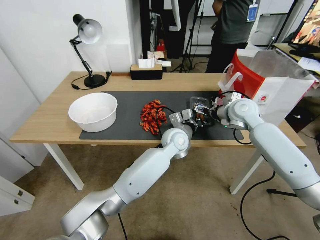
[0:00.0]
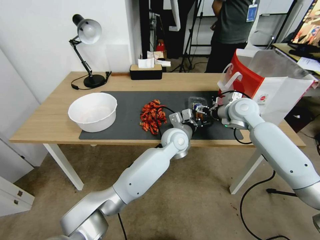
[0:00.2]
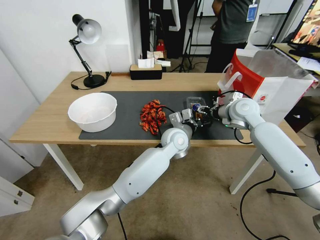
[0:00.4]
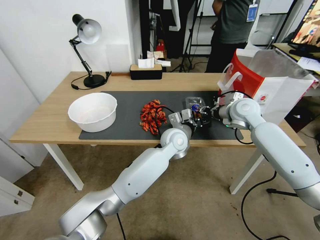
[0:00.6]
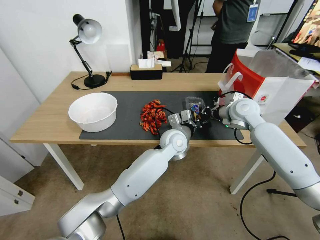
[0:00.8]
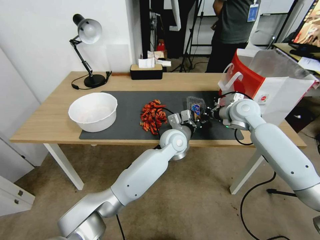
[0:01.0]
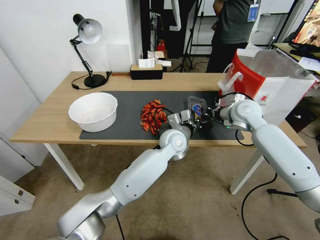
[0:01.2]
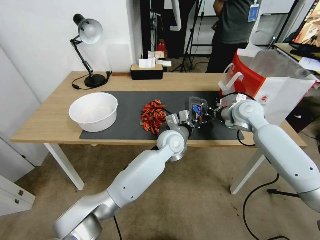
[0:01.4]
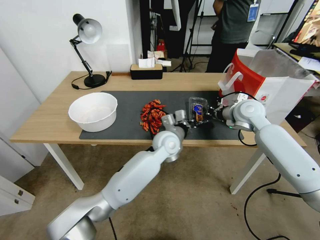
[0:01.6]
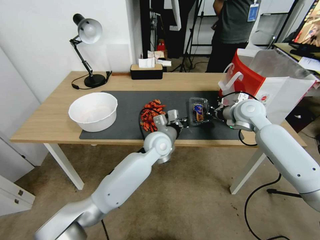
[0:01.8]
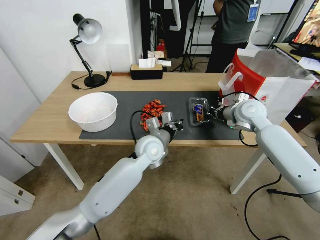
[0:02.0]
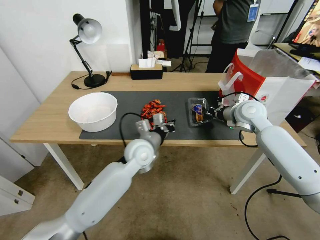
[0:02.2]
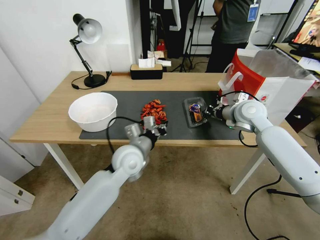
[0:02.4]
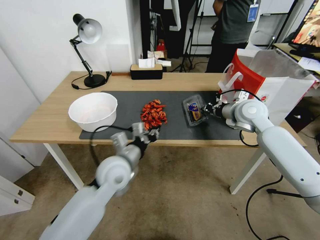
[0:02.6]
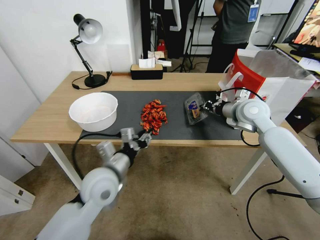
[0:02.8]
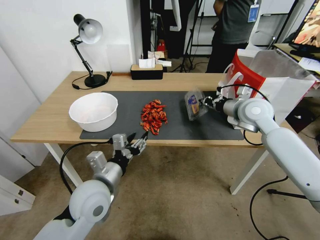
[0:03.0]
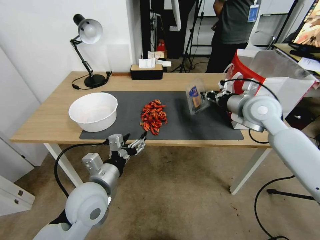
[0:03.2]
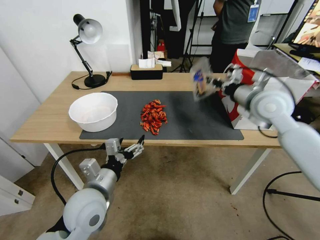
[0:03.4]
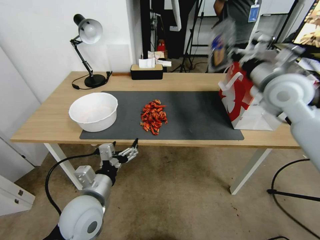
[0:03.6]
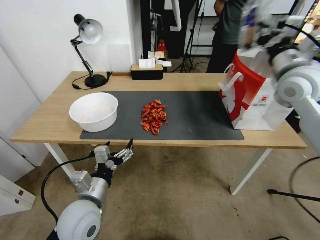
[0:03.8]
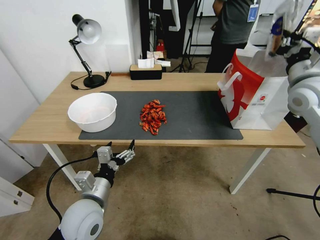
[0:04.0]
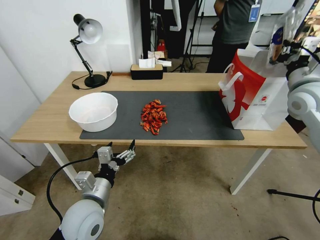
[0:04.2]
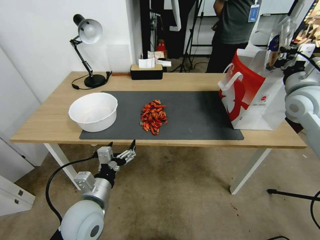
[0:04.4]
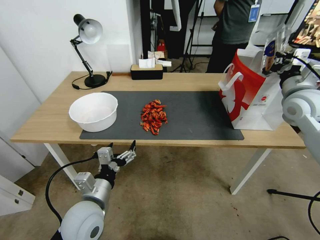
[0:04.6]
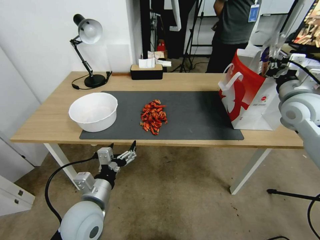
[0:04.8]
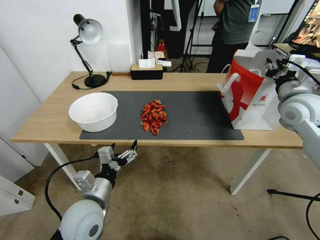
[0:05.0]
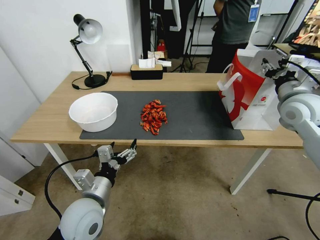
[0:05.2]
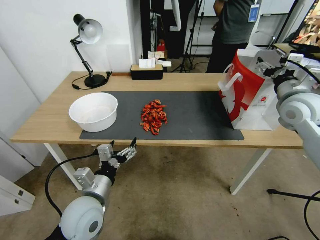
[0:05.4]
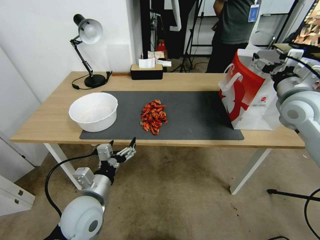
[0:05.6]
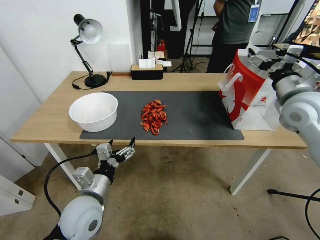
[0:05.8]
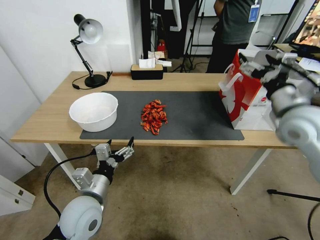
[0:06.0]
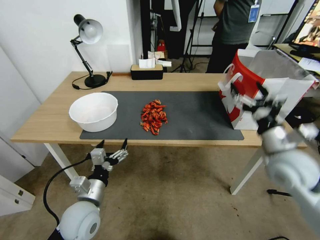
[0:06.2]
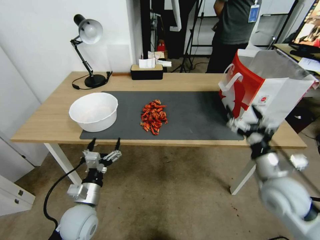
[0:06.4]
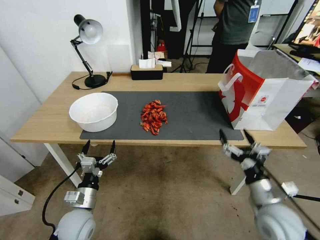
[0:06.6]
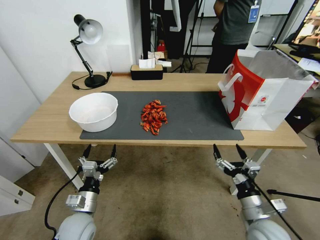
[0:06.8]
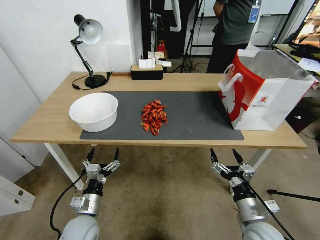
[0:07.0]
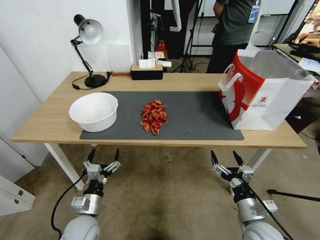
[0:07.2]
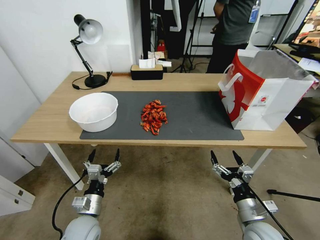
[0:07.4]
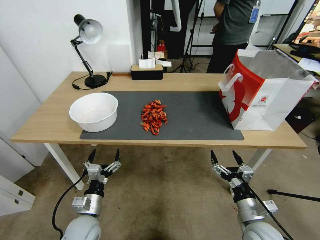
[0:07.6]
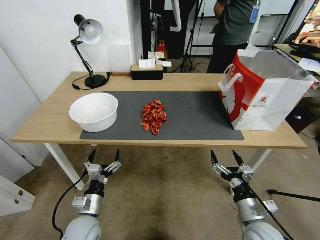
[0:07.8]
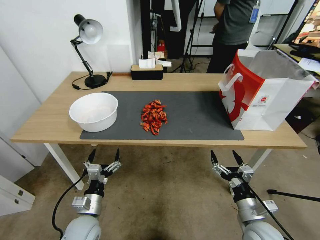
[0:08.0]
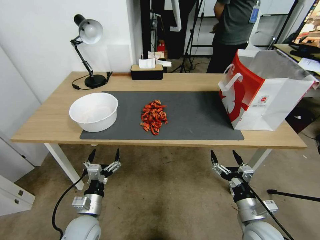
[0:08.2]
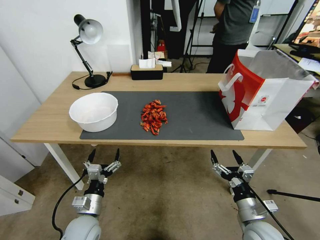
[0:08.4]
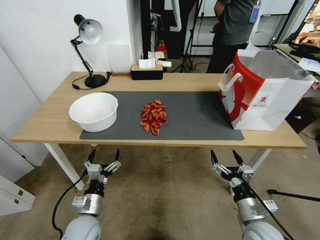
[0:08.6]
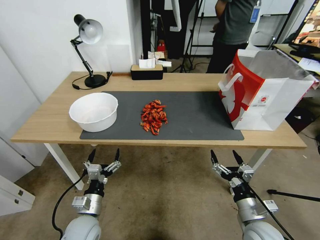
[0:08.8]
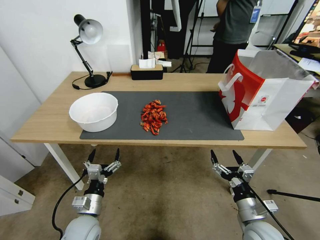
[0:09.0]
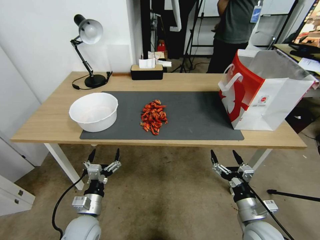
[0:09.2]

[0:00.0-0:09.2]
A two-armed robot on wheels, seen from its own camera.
0:00.0 to 0:01.6: The right gripper closes.
0:01.6 to 0:03.0: The left gripper is displaced to the left and backward by about 30 cm, and opens up.
0:03.0 to 0:04.6: The right gripper goes approximately 10 cm to the right; the left gripper changes place by roughly 5 cm, and opens up.
0:04.6 to 0:06.2: The right gripper goes approximately 20 cm backward, downward and to the left, and opens.
0:06.2 to 0:07.6: The left gripper moves downward, approximately 10 cm; the right gripper heads downward and backward, covering some 25 cm.
0:07.6 to 0:09.2: The two grippers keep their place.

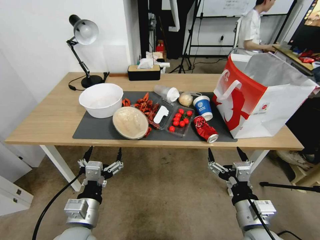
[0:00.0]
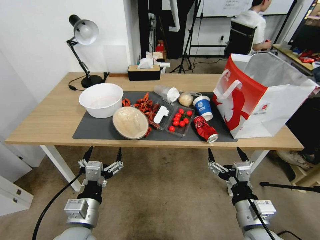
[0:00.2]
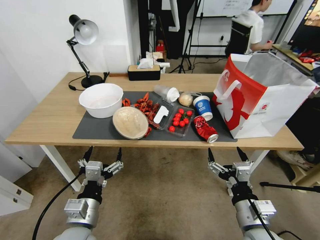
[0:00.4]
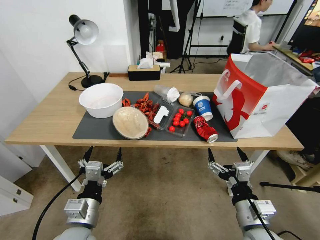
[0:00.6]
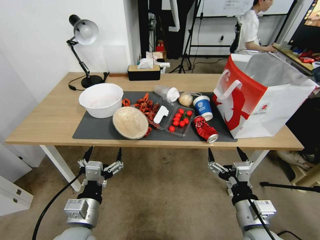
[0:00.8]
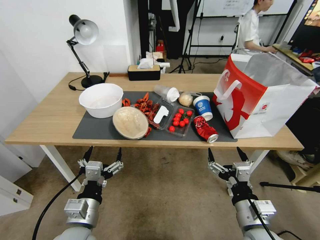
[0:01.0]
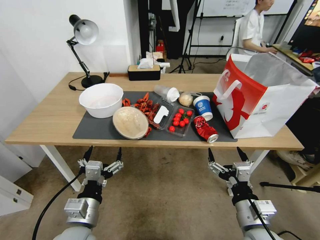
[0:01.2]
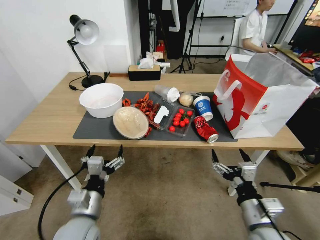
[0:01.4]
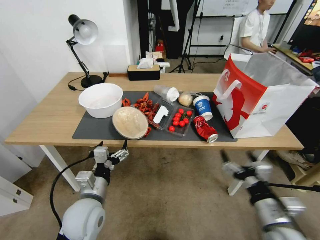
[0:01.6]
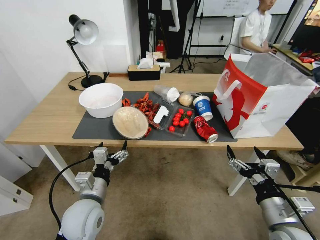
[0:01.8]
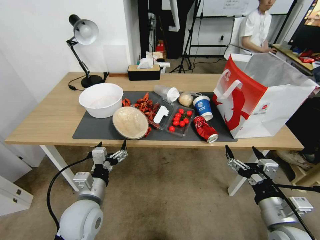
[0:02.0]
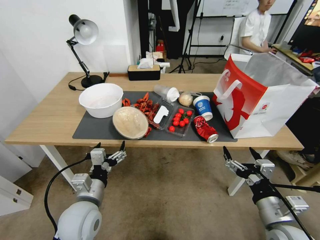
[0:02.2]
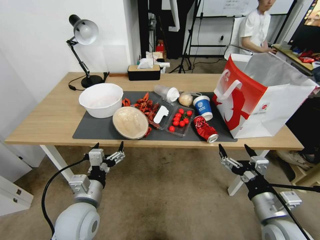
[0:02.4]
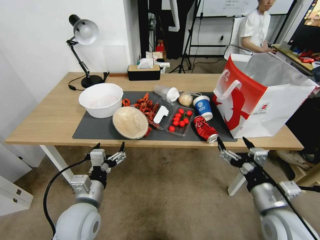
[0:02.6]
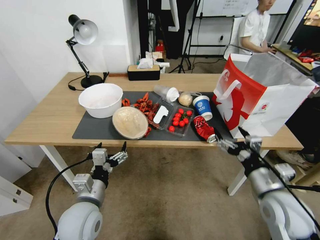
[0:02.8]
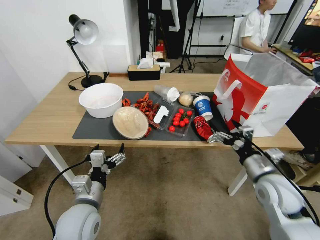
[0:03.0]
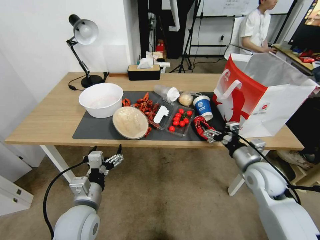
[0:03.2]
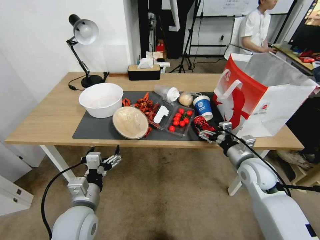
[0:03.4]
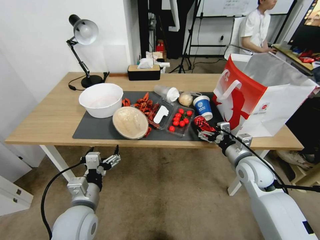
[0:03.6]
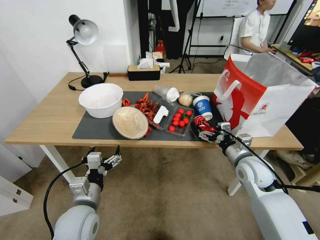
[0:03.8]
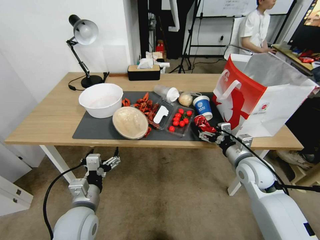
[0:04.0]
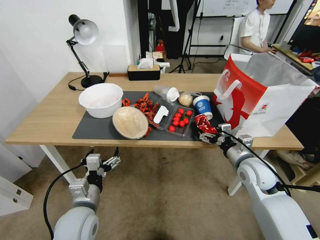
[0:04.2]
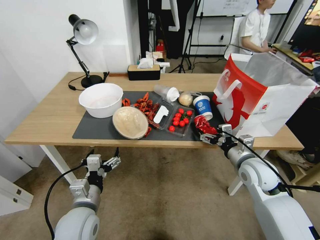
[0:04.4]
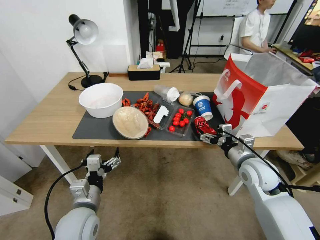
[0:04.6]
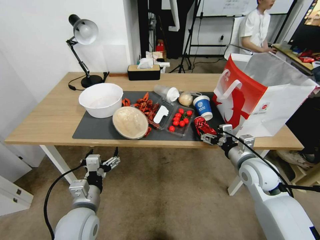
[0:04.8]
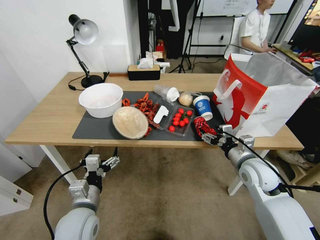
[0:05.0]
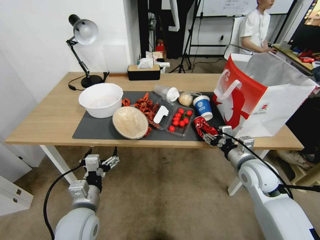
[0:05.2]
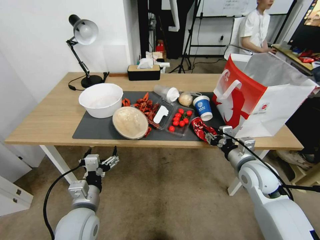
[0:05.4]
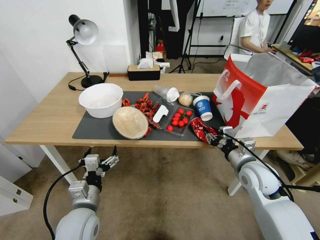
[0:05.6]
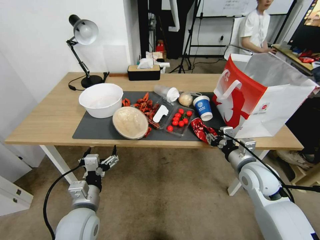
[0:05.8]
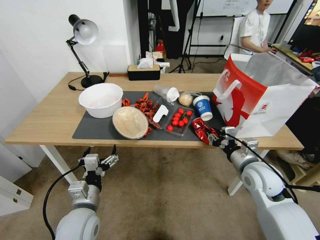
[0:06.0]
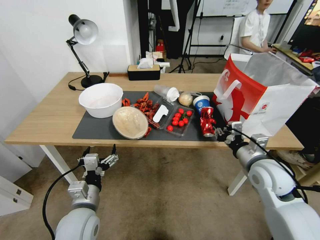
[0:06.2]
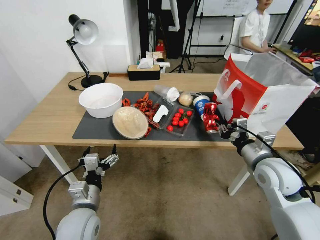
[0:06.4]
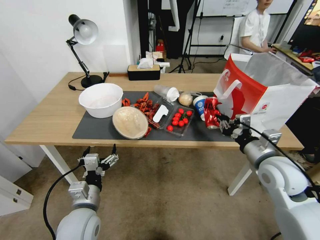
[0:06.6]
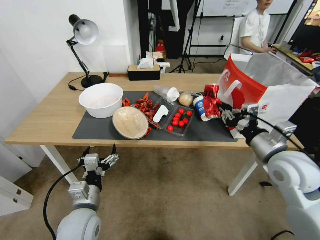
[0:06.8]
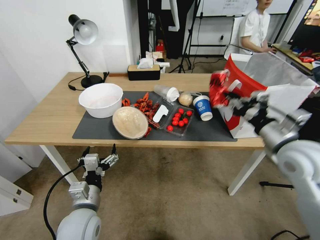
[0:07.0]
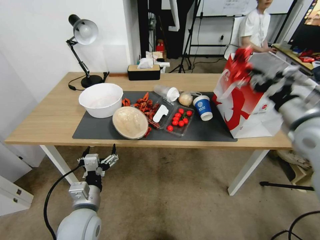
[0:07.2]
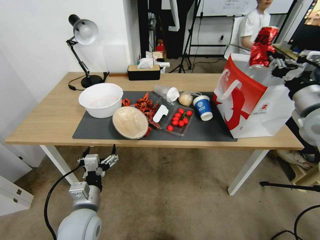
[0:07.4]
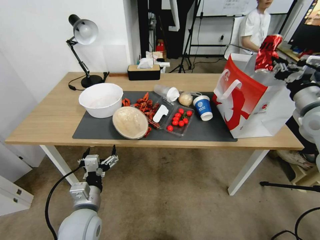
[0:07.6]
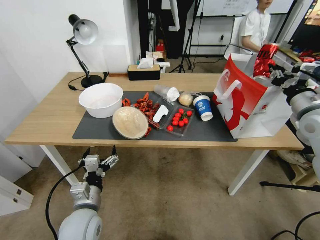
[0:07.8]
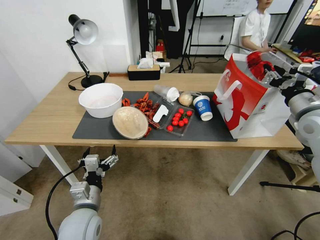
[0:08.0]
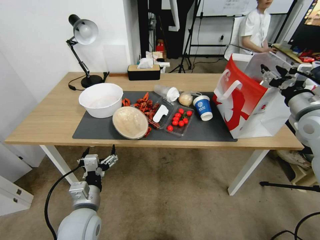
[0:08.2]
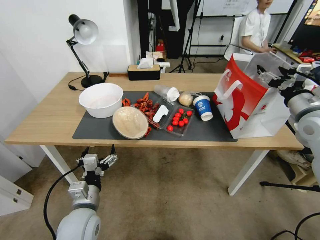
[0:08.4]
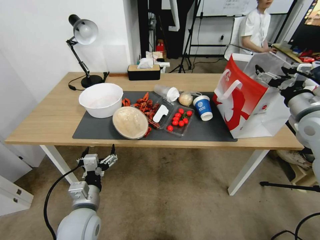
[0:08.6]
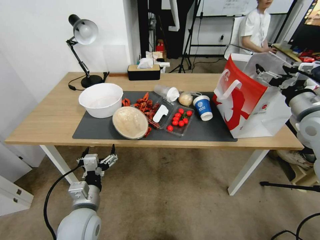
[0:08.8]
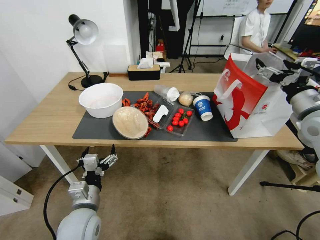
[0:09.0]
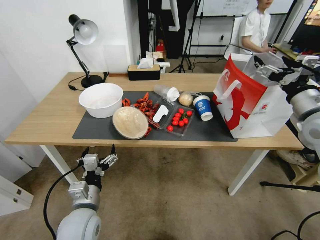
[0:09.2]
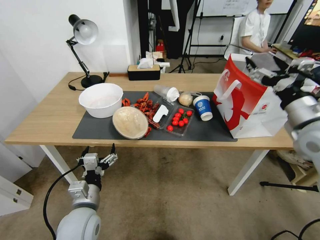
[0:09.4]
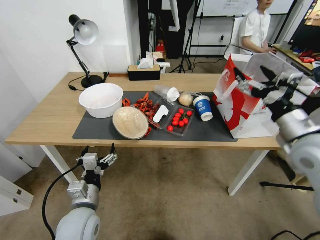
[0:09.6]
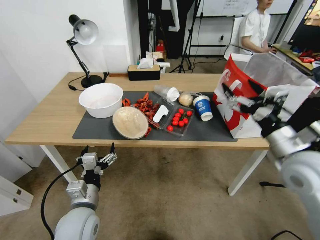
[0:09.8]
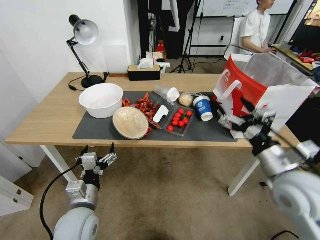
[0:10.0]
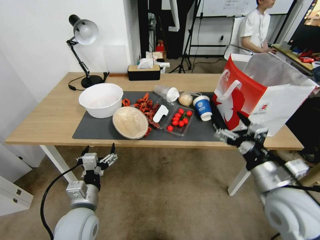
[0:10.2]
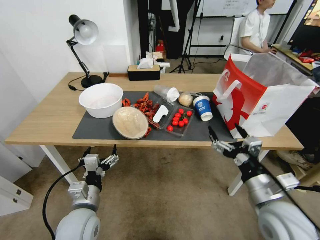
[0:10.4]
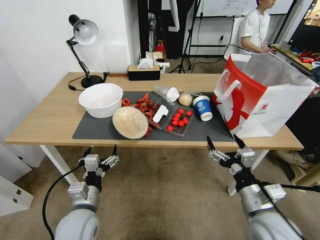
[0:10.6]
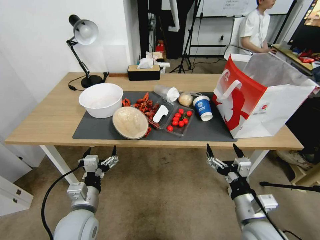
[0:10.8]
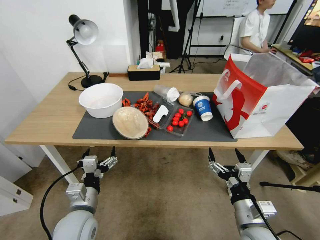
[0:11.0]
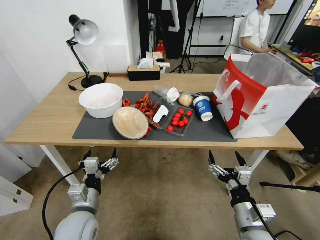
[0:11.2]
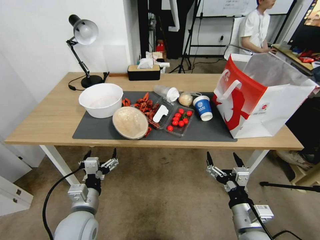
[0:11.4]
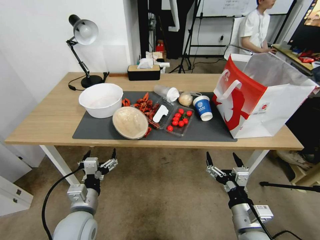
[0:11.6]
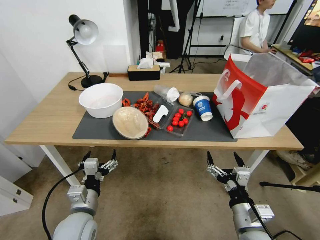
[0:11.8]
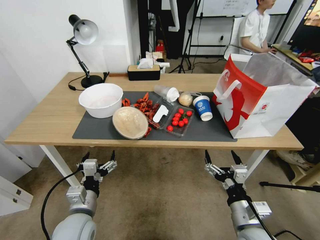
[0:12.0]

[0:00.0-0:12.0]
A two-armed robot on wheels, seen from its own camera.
0:01.6 to 0:03.0: The right gripper heads forward, covering about 10 cm.
0:03.0 to 0:04.4: The right gripper travels forward by about 5 cm.
0:04.4 to 0:06.0: The right gripper closes its fingers.
0:06.0 to 0:07.6: The right gripper travels upward and to the right by roughly 20 cm.
0:07.6 to 0:09.0: The right gripper opens up.
0:09.0 to 0:10.4: The right gripper travels backward, downward and to the left by approximately 25 cm.
0:10.4 to 0:12.0: The right gripper heads downward, covering approximately 10 cm.

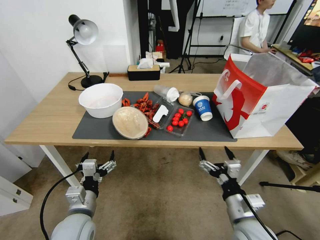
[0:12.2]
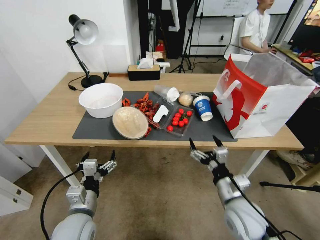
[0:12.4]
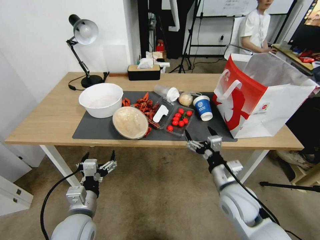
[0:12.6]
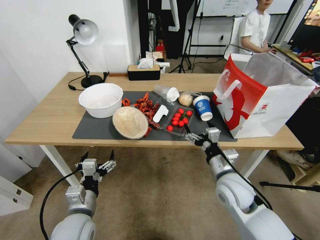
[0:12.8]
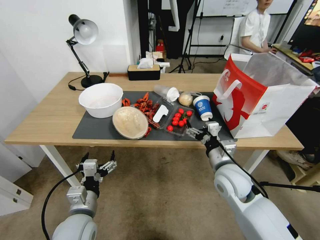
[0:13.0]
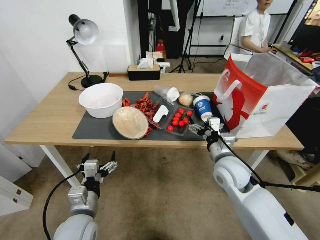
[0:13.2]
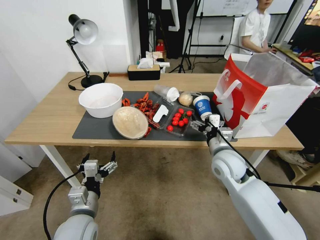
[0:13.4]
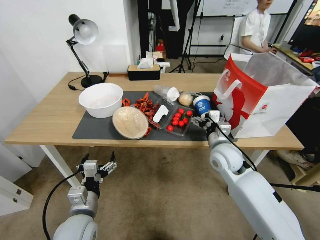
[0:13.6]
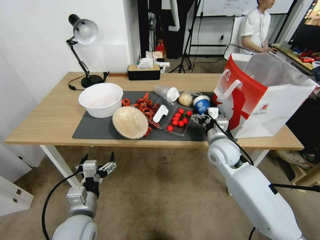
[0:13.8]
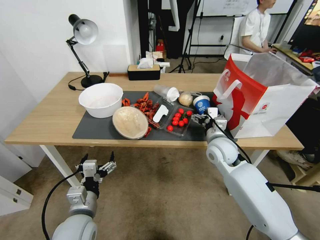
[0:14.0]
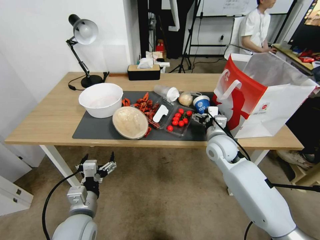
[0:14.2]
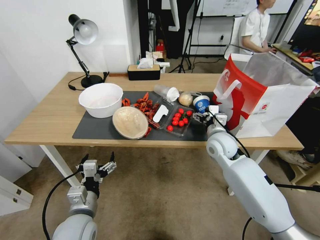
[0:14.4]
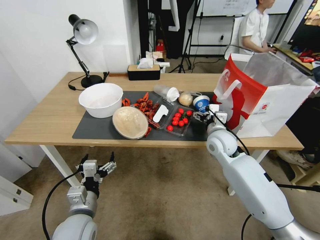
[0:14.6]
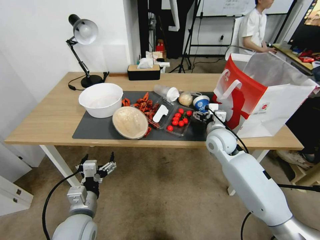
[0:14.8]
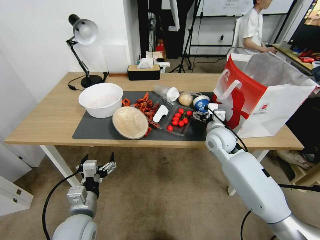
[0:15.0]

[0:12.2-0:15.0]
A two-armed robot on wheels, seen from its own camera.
0:12.2 to 0:13.6: The right gripper travels forward by about 20 cm.
0:13.6 to 0:15.0: The right gripper heads forward, covering about 5 cm.
